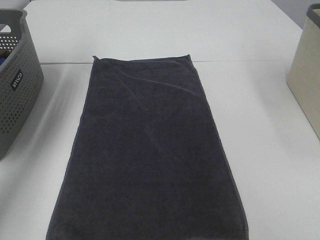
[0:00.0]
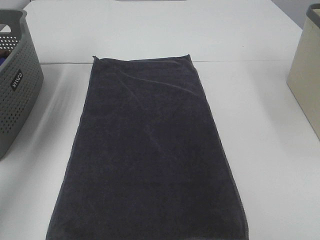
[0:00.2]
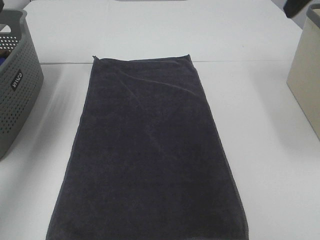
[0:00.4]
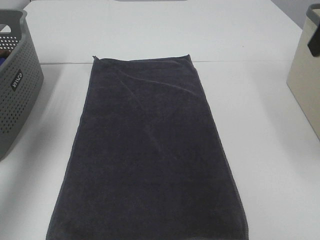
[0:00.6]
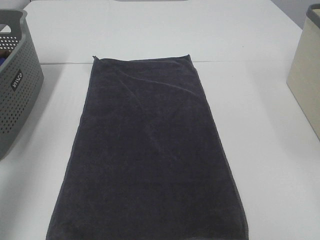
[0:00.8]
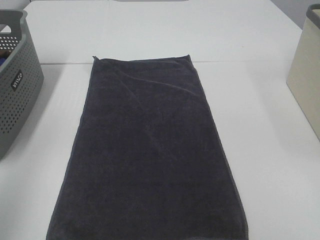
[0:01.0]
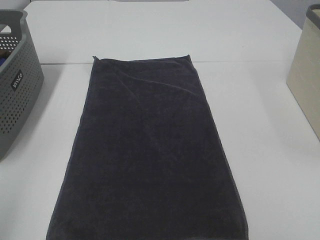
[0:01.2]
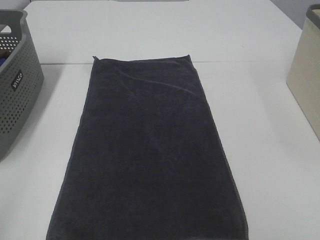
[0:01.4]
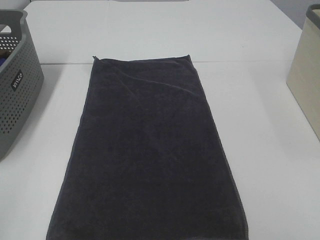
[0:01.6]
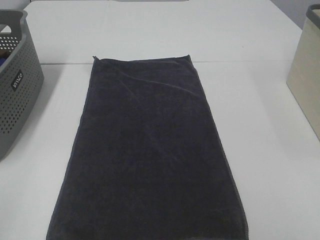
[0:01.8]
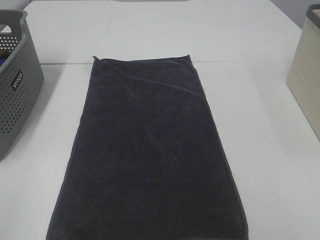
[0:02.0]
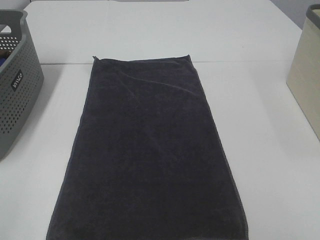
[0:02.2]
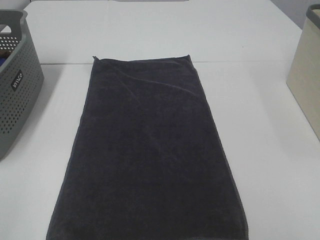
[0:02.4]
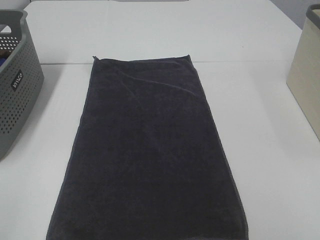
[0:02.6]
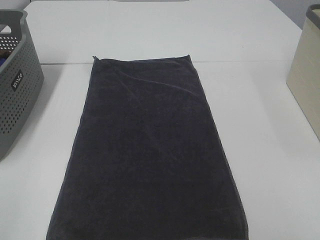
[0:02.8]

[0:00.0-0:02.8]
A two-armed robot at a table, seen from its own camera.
Task of the whole recording: Remove the towel and place it.
0:00.0 to 0:01.4: The left gripper is displaced backward by about 40 cm.

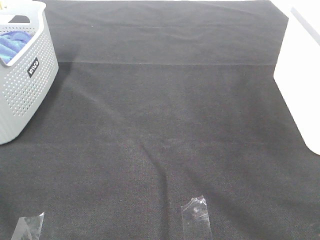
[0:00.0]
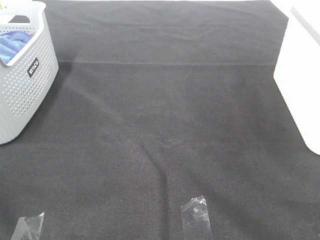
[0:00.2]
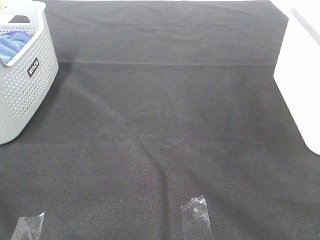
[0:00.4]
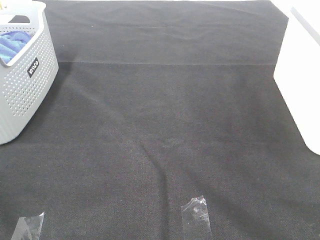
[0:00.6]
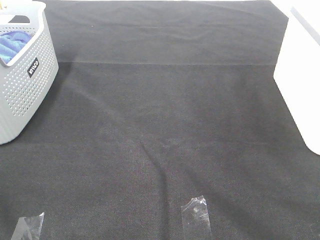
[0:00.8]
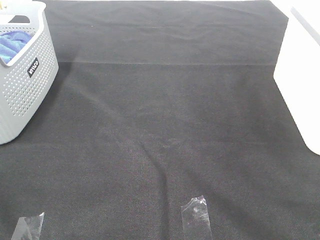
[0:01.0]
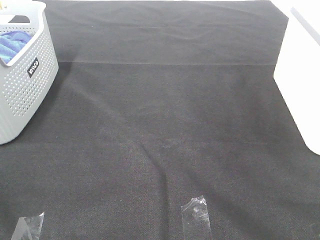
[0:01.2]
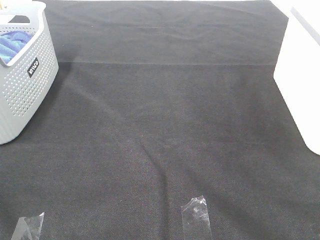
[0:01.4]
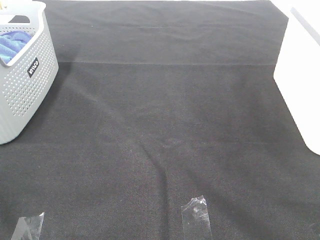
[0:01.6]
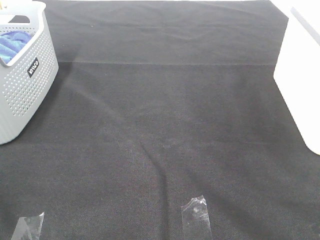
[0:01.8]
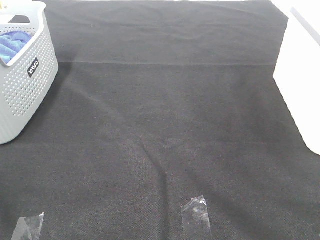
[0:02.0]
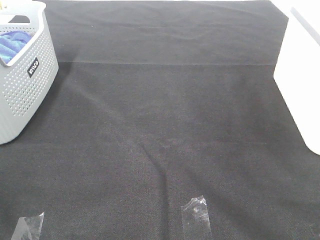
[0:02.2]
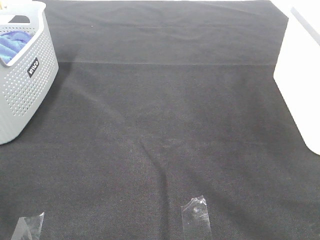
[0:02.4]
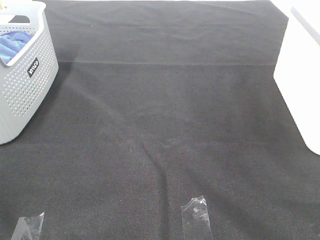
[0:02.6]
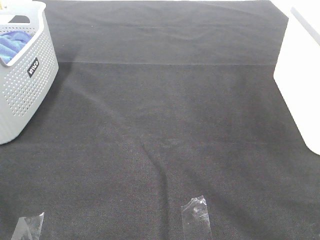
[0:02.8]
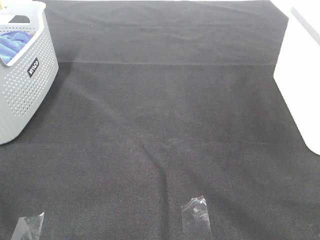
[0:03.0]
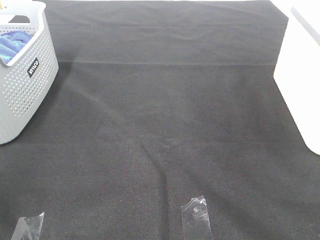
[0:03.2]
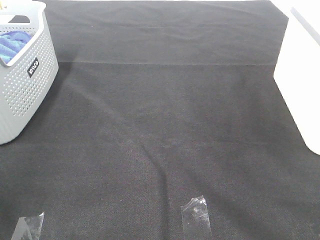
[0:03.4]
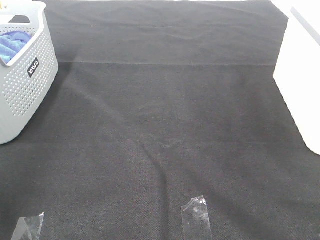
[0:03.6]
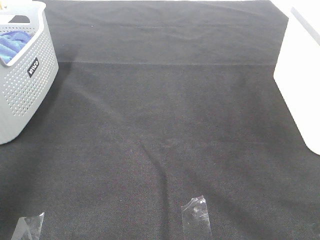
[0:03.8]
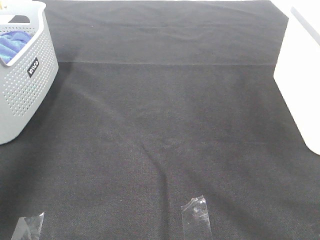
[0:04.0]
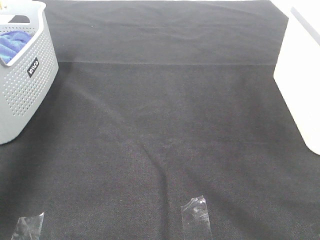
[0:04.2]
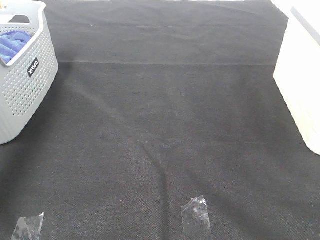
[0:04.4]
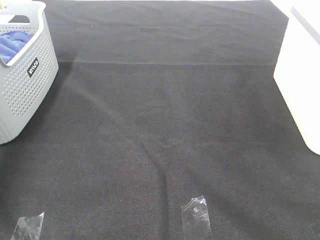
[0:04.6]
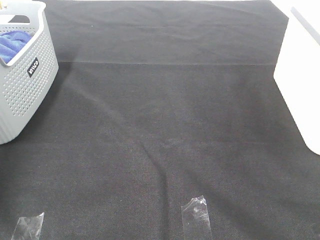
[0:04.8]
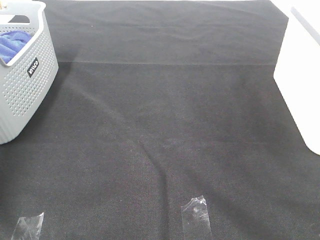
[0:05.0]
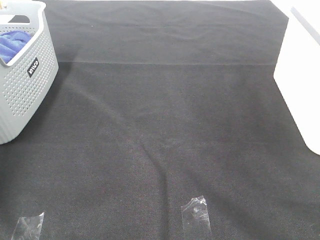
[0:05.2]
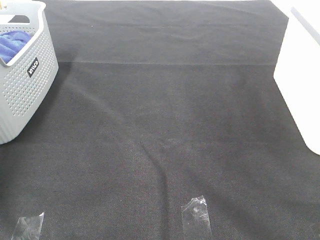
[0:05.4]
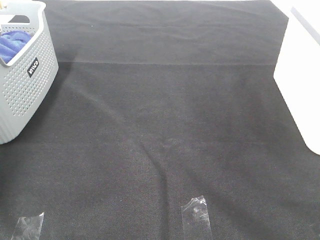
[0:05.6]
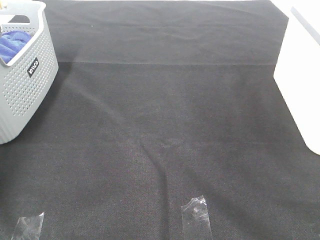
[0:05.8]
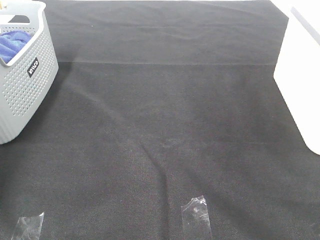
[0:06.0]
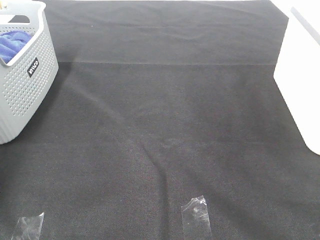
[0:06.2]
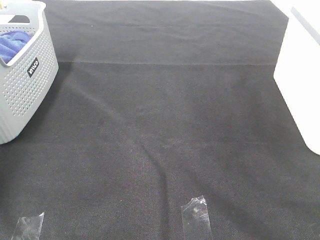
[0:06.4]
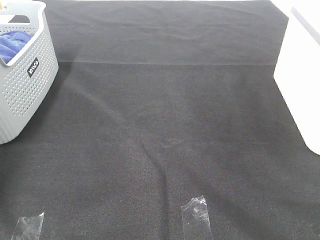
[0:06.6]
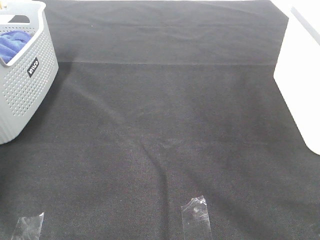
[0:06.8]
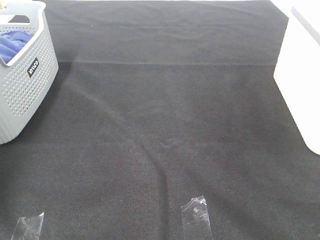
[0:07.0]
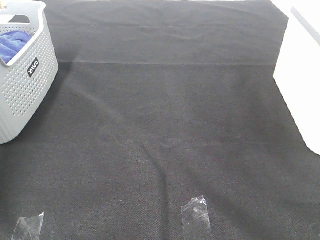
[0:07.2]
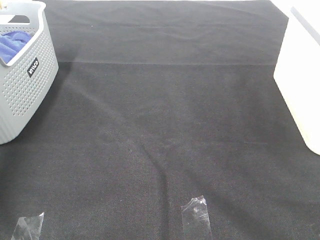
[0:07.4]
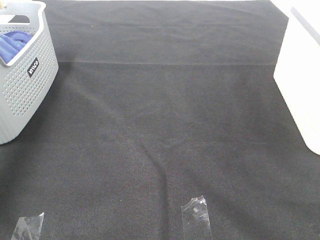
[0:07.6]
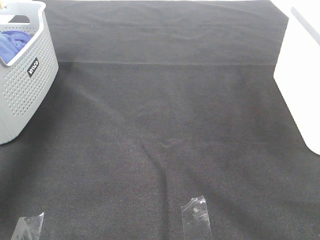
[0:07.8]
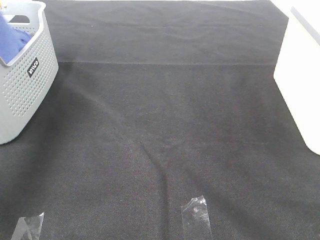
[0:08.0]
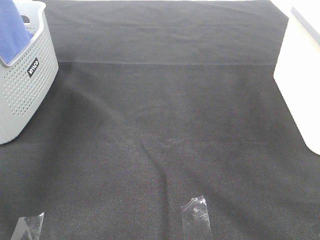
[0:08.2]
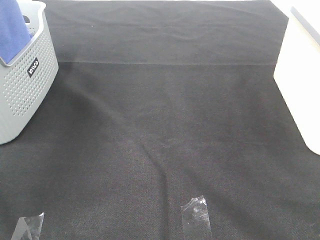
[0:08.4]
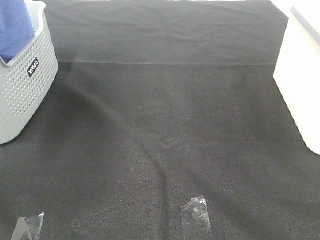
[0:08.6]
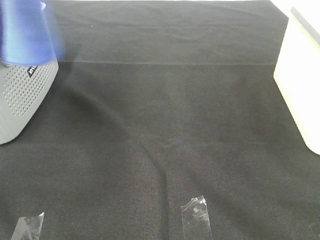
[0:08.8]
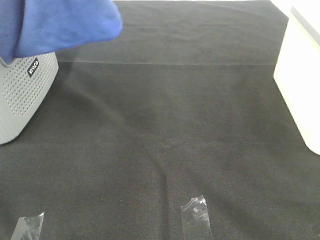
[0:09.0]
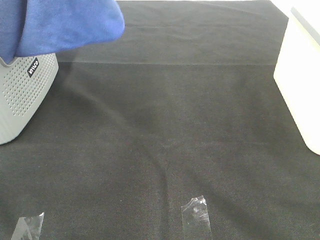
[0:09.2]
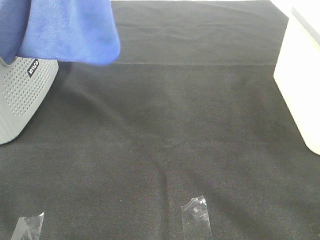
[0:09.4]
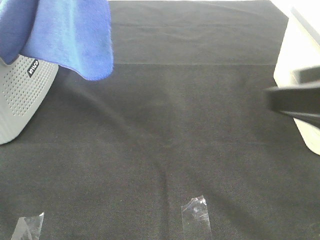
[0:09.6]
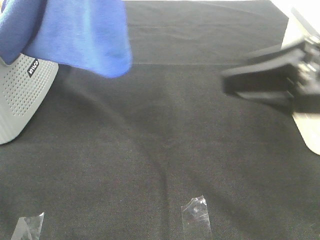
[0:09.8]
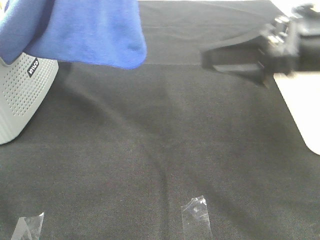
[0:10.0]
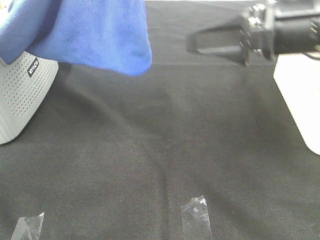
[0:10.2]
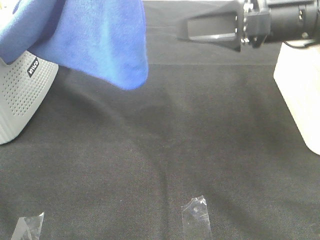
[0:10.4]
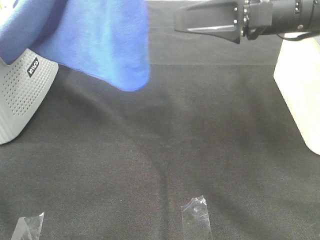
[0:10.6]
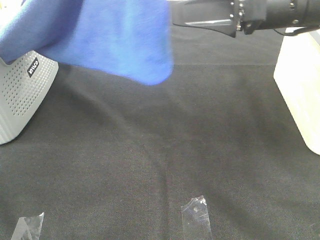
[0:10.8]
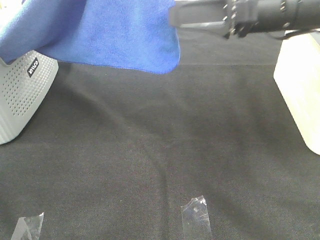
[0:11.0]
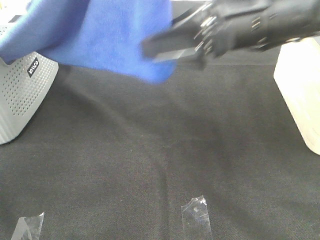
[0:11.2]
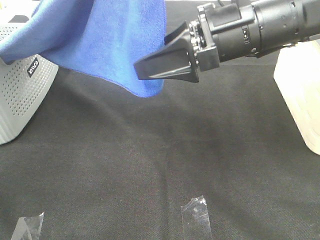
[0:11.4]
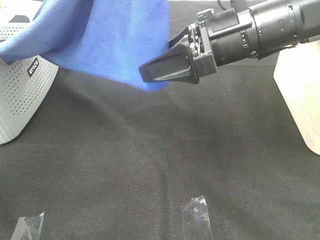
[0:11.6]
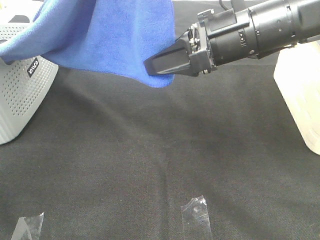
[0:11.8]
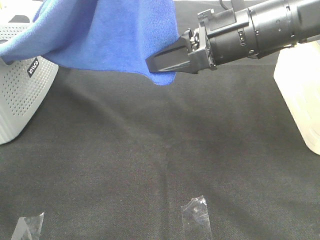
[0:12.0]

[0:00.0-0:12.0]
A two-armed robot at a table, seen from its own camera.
Task of the whole recording: Remove the towel and place it.
0:00.0 to 0:01.6: The two grippers keep their place.
0:03.0 to 0:04.4: The left gripper heads forward, covering about 40 cm.
0:04.4 to 0:06.0: The left gripper heads downward and forward, covering about 20 cm, and closes.
0:07.6 to 0:09.0: The left gripper travels to the right, backward and upward by approximately 30 cm.
0:09.0 to 0:10.4: The left gripper moves approximately 5 cm, while the right gripper moves forward and to the left, some 30 cm.
0:10.4 to 0:12.0: The right gripper is displaced to the left by roughly 5 cm, and closes its fingers.

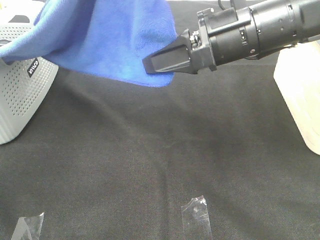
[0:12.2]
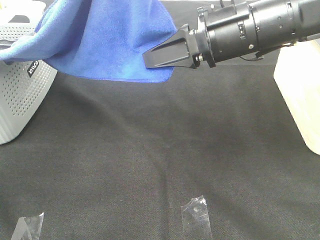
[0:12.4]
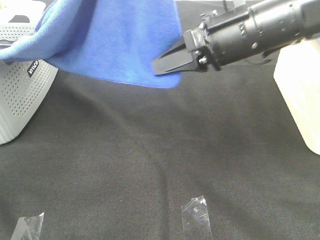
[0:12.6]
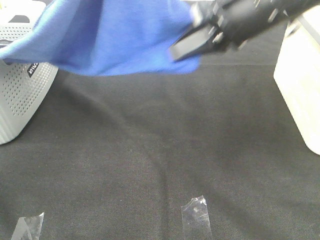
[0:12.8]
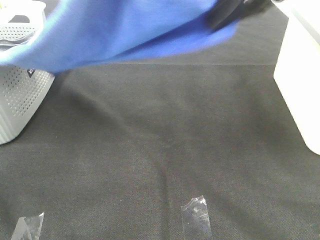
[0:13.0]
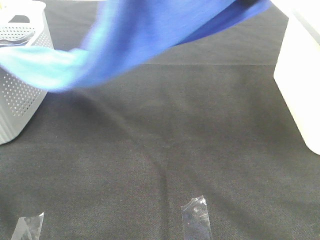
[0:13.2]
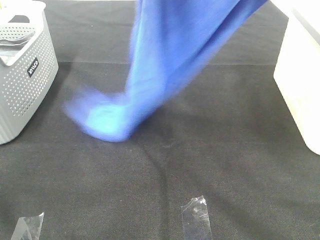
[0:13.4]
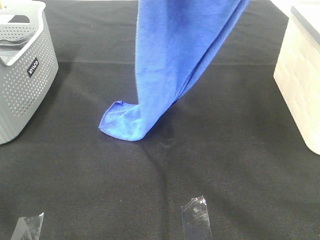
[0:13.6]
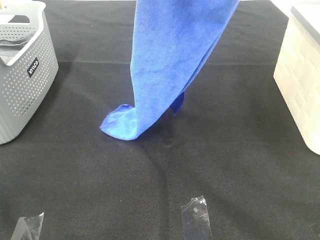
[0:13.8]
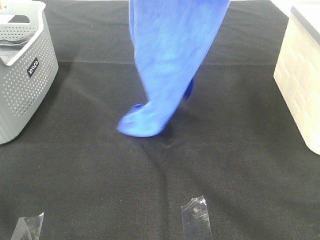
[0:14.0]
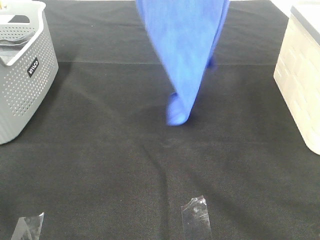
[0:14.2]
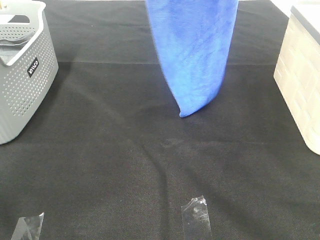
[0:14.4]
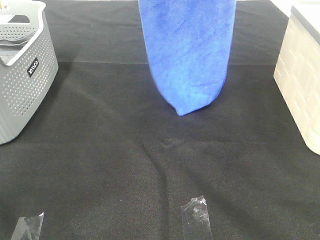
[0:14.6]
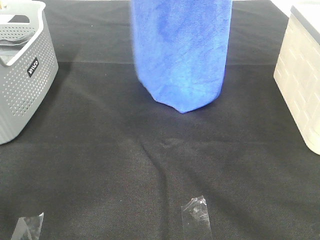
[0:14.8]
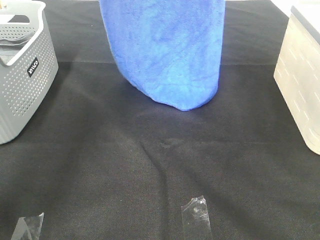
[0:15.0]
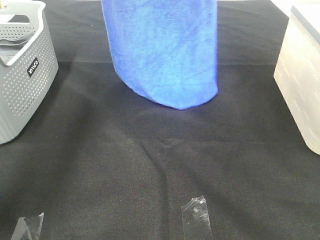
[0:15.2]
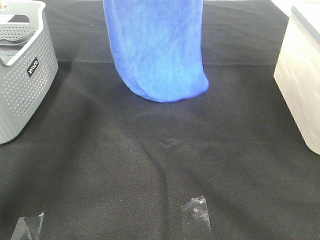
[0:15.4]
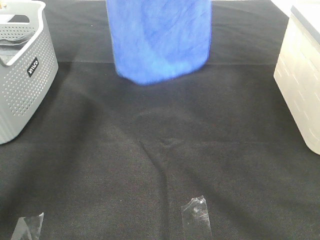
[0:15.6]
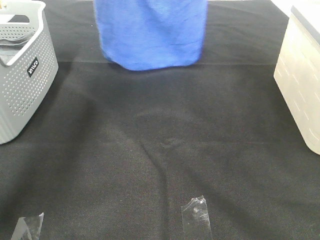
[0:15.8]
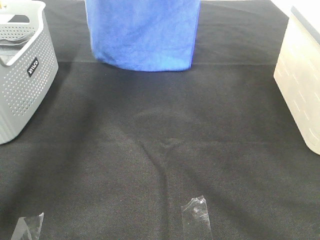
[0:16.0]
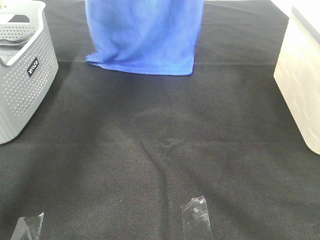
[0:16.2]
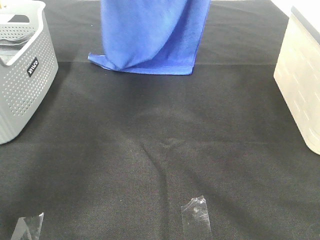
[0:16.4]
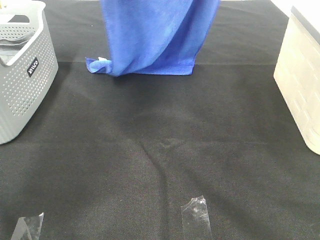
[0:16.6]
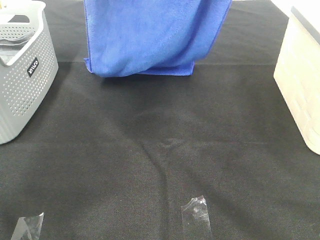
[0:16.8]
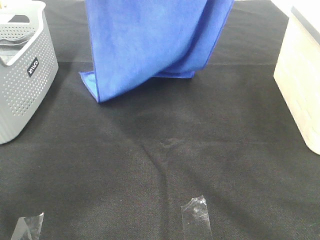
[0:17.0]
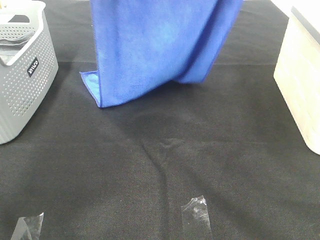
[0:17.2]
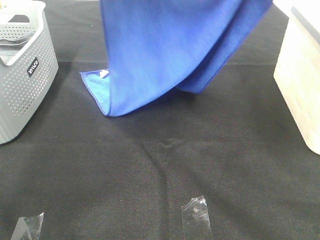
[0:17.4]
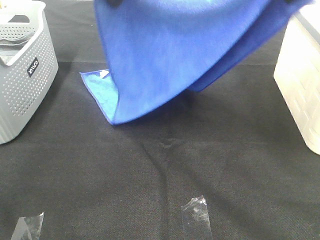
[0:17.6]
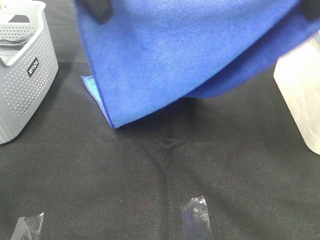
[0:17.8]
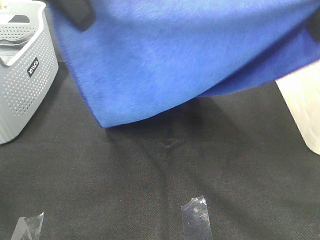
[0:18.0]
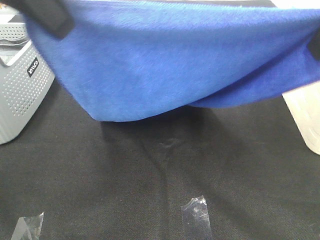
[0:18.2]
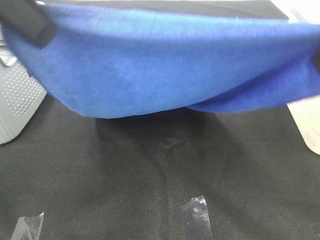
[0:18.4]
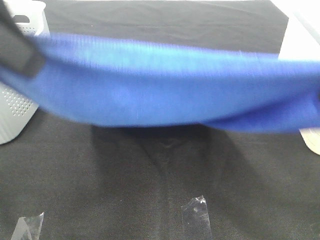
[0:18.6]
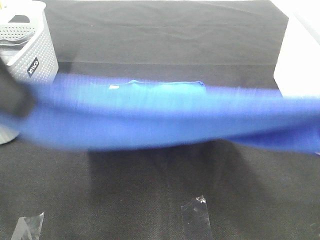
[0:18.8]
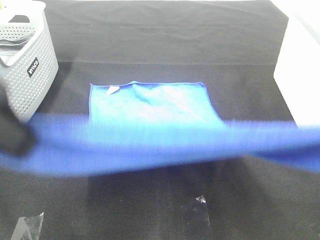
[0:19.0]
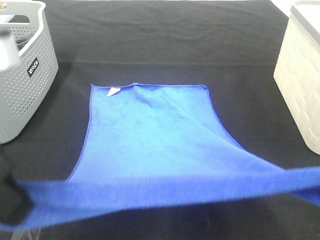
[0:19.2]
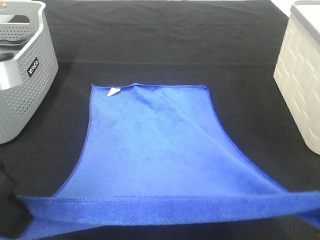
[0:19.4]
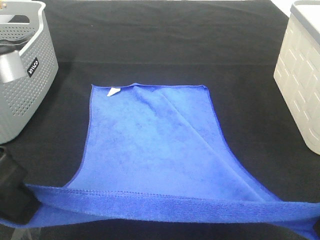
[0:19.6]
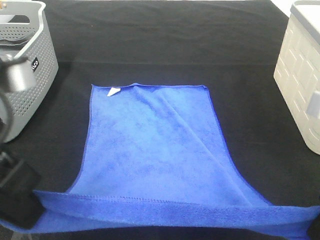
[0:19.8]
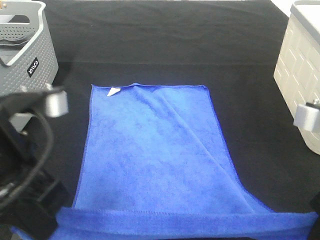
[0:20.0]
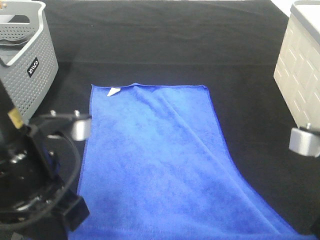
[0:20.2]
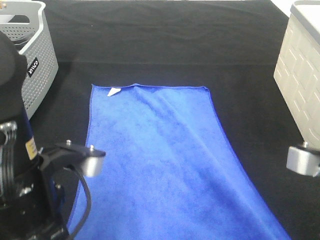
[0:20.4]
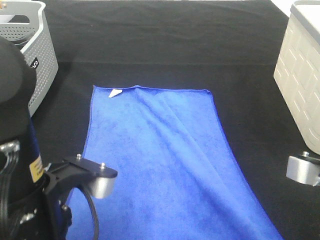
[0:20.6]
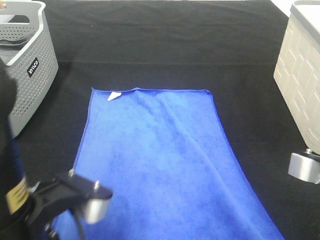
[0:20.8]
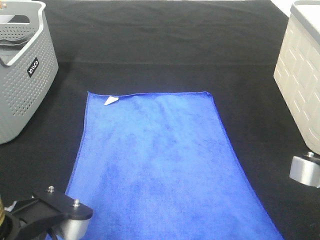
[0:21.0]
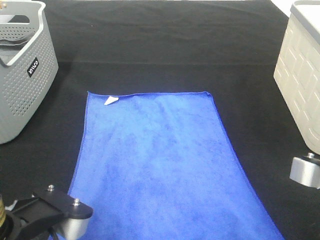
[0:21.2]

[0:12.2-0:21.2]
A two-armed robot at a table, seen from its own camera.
Task of the whole recording: Remove the towel and place it.
Step, 0:12.6 to 0:18.8: Left hand: spread the blue towel flat on the table.
Step, 0:12.6 to 0:18.8: Right hand: spread the blue towel flat on the table.
0:12.2 to 0:13.8: The left gripper heads forward, covering approximately 5 cm; the right gripper goes approximately 20 cm upward.
0:13.8 to 0:15.2: The right gripper travels forward by approximately 15 cm. The left gripper goes some 20 cm forward and to the left.
0:15.2 to 0:16.6: The right gripper heads backward, covering some 5 cm. Meanwhile the left gripper shifts roughly 5 cm to the right.
0:16.6 to 0:18.2: Both grippers travel together backward, roughly 20 cm.
0:18.2 to 0:19.8: Both grippers move downward and backward, about 15 cm.
0:19.8 to 0:21.2: The right gripper moves some 5 cm; the left gripper goes approximately 10 cm downward and backward.
